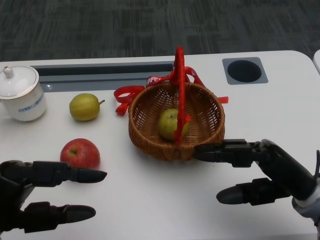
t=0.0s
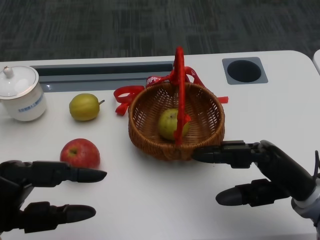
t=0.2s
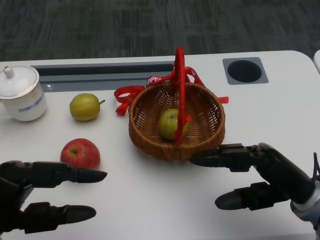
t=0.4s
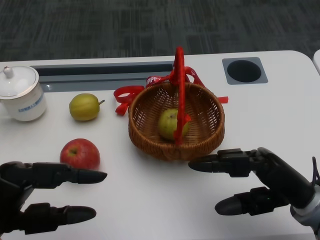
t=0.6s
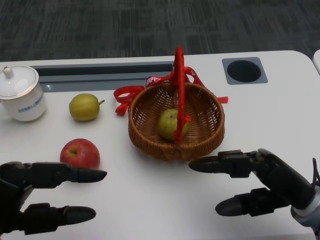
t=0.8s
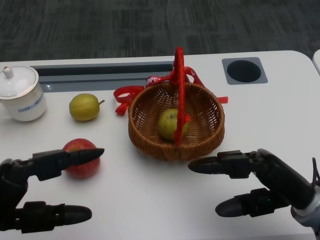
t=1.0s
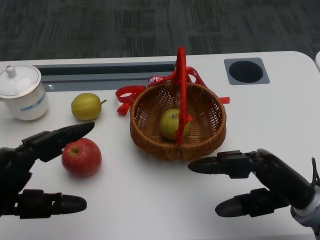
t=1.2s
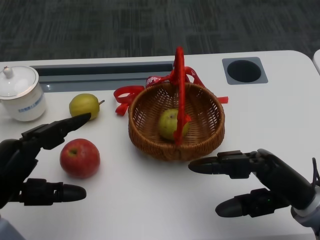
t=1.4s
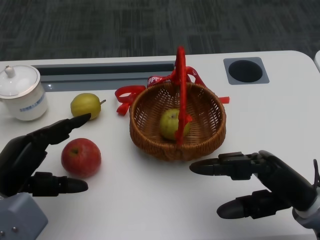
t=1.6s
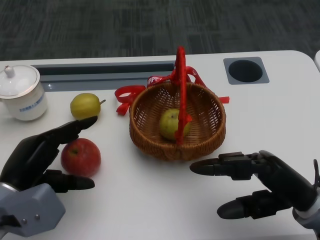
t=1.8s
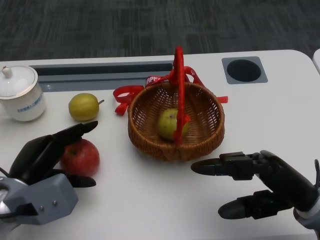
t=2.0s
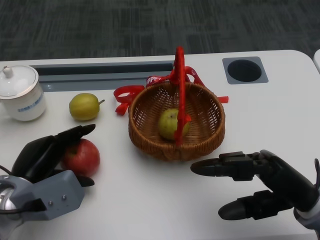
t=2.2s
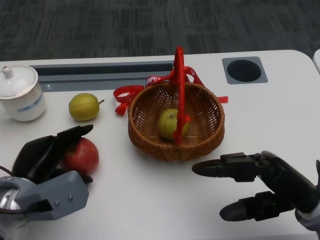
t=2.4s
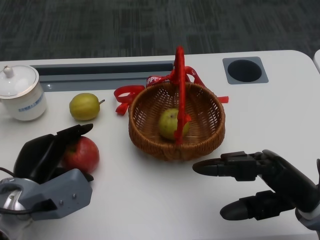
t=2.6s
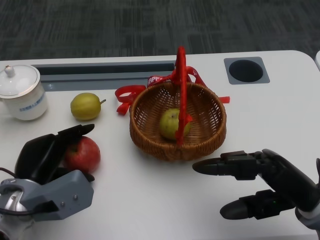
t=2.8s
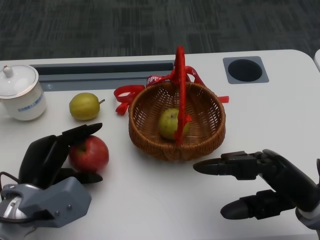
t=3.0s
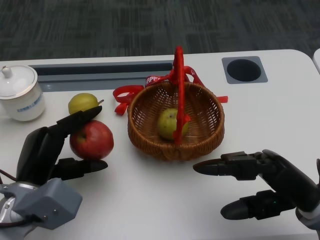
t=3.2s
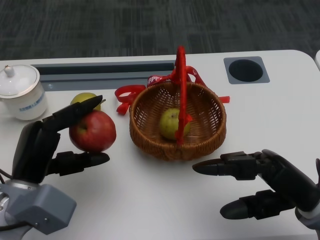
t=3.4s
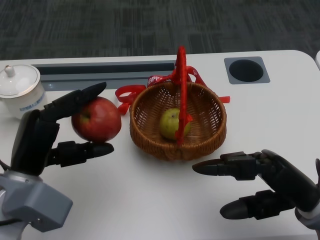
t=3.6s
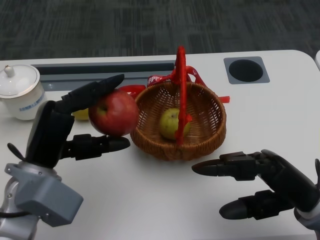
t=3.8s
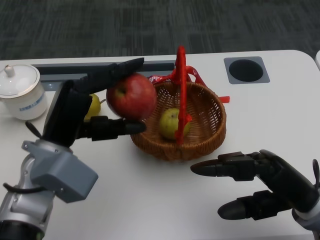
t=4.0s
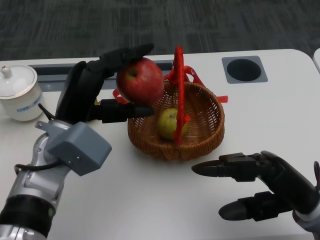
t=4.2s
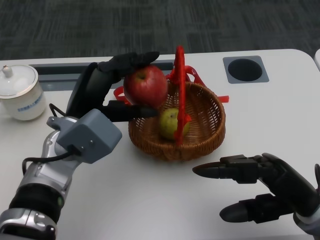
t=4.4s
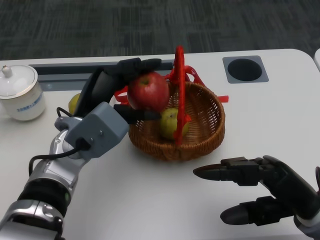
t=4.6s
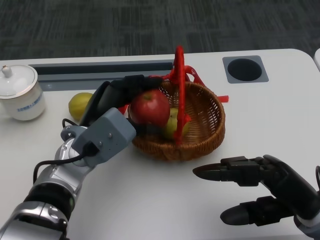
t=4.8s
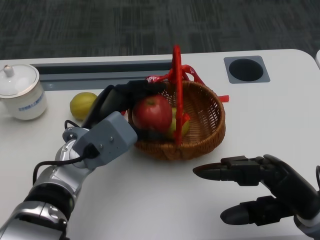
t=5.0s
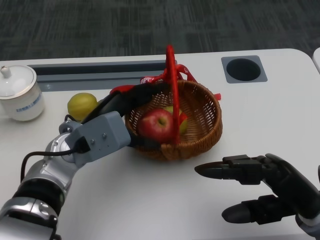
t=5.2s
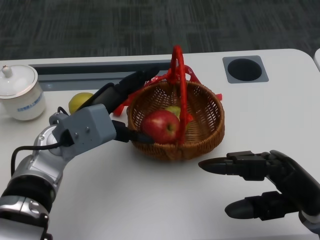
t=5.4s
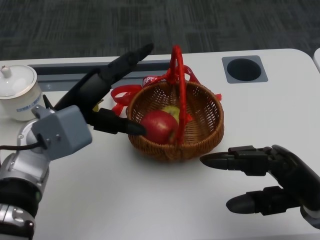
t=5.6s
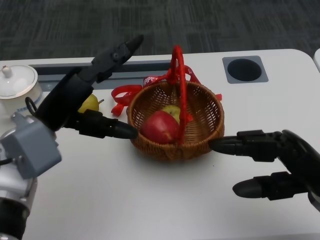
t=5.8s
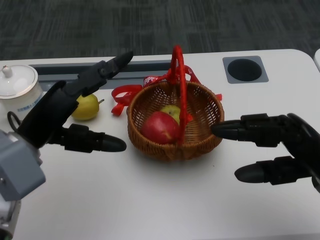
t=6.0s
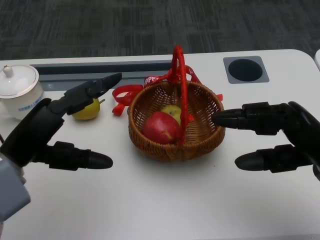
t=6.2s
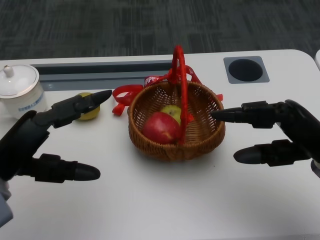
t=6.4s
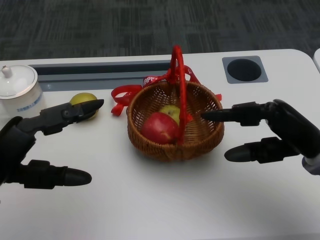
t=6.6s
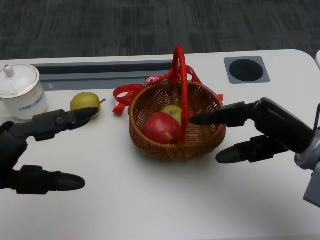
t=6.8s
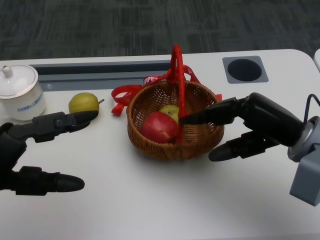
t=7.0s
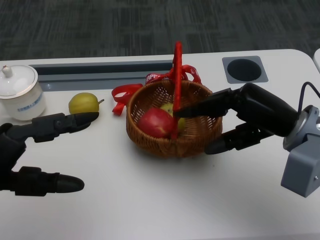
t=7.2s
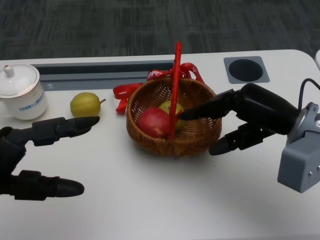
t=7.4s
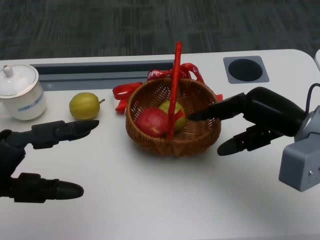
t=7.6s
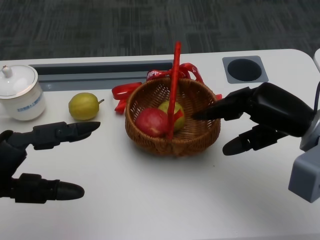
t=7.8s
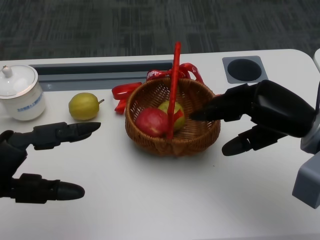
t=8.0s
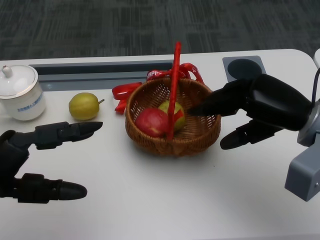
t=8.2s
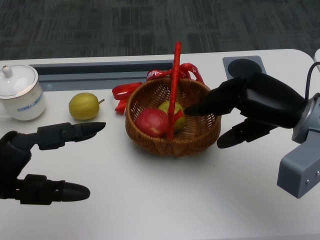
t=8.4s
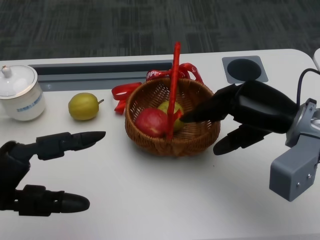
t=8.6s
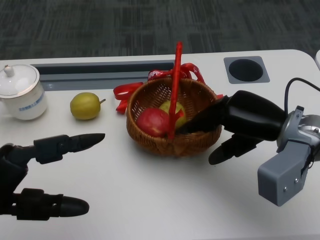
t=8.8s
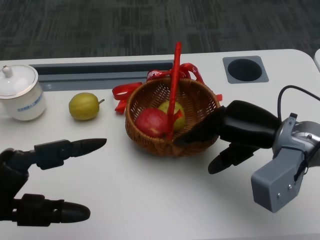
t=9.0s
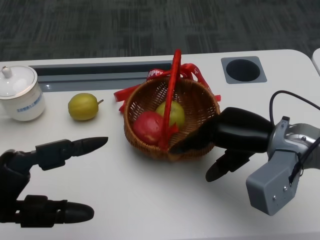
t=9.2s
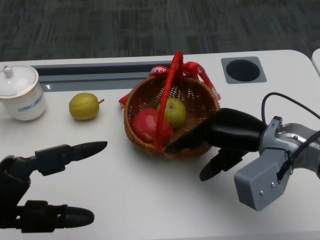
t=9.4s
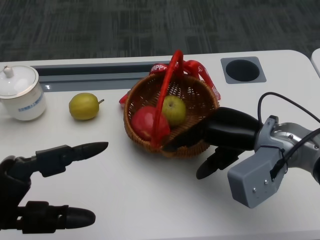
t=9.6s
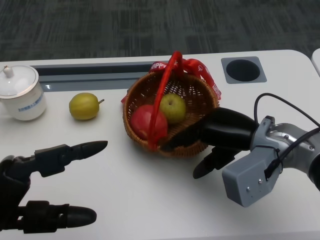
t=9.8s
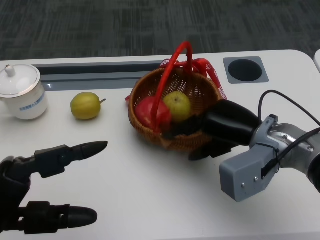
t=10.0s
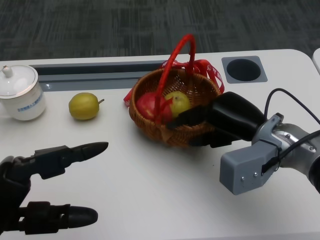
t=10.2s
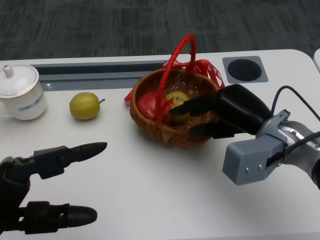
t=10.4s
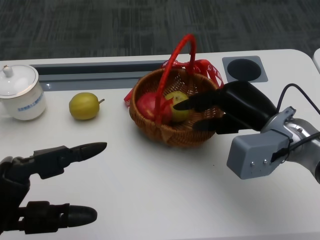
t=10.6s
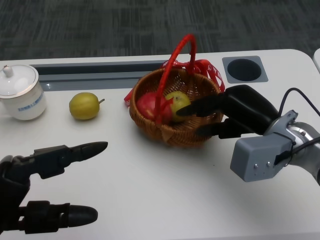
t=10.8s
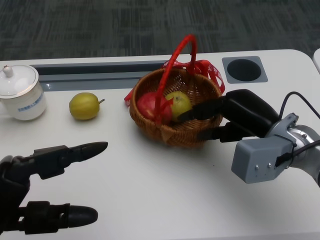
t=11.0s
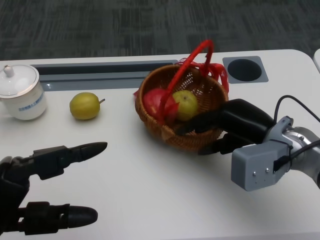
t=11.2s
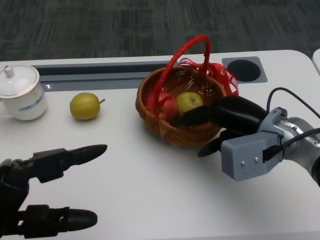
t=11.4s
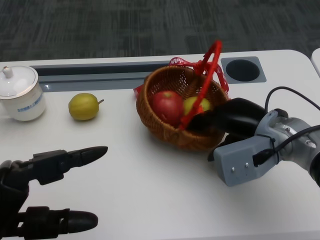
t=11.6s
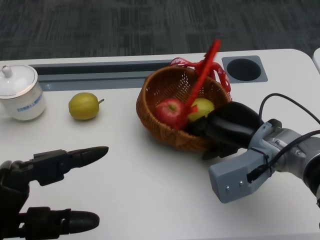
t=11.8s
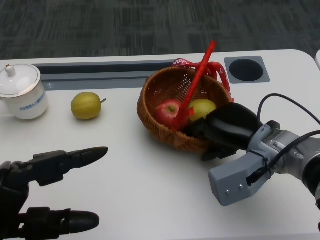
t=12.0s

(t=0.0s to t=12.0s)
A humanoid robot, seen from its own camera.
Step, t=0.8s - t=1.8s: Grasp the apple with the left gripper.
Step, t=2.0s - t=4.4s: Place the apple into the basket with the left gripper.
Step, t=4.6s - t=9.8s: Grasp the basket with the right gripper.
Step, t=10.0s - t=11.8s: Move the basket to the front of the table with the right gripper.
t=1.6s - t=3.0s: The left hand goes about 5 cm downward.
t=3.0s - t=4.4s: The left hand is displaced upward, to the right and forward by about 10 cm.
t=4.4s - t=6.0s: The left hand is displaced to the left by about 5 cm.
t=6.0s - t=7.6s: The right hand heads forward, covering roughly 5 cm, while the left hand goes roughly 10 cm backward and to the left.

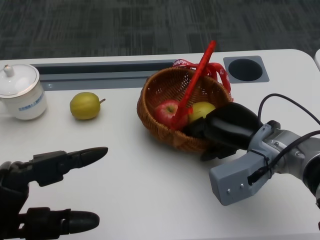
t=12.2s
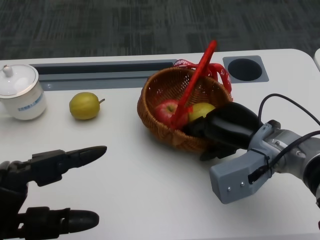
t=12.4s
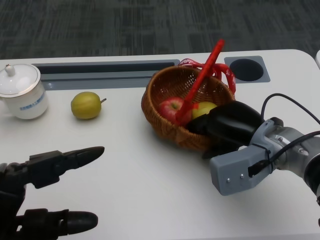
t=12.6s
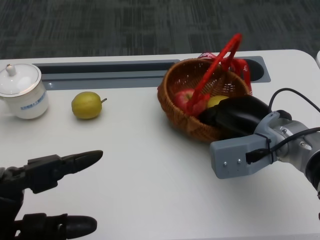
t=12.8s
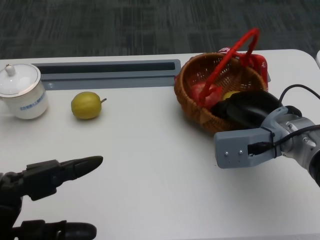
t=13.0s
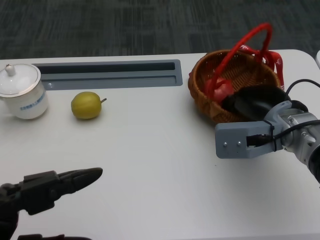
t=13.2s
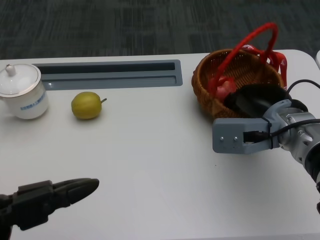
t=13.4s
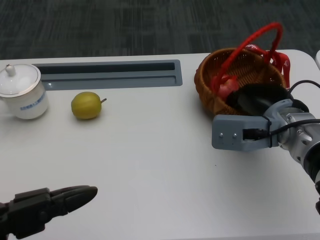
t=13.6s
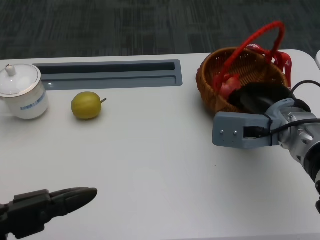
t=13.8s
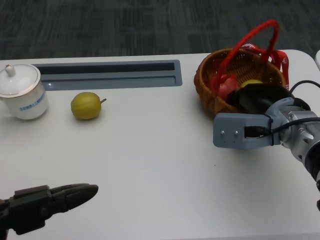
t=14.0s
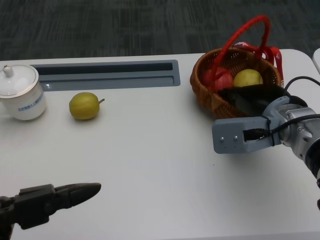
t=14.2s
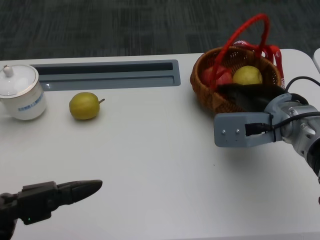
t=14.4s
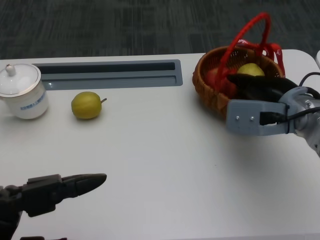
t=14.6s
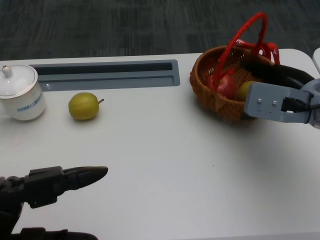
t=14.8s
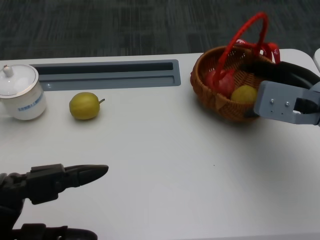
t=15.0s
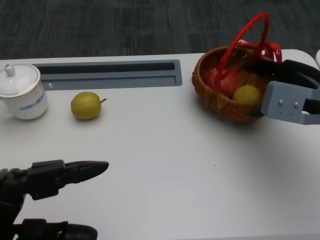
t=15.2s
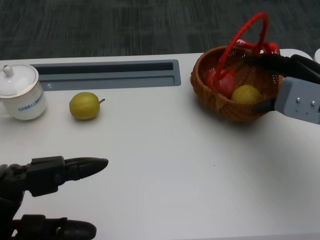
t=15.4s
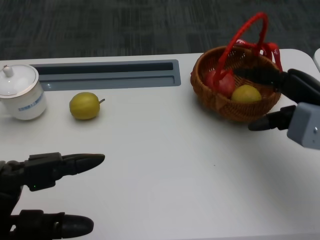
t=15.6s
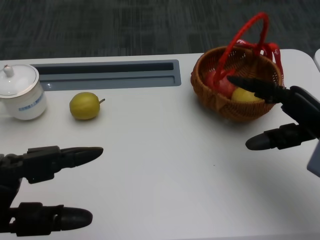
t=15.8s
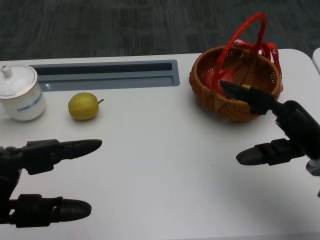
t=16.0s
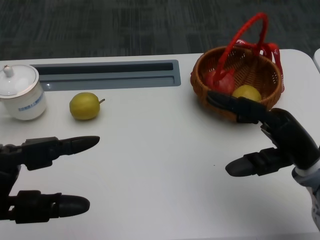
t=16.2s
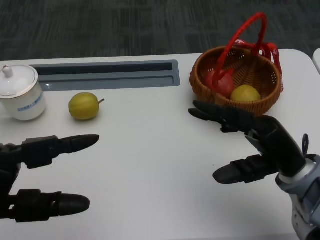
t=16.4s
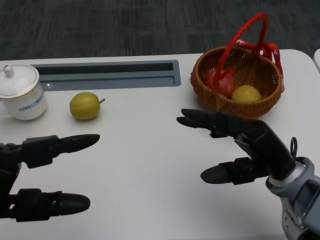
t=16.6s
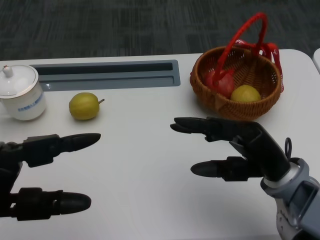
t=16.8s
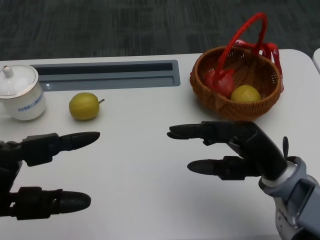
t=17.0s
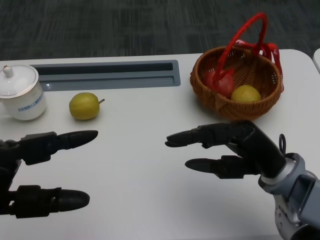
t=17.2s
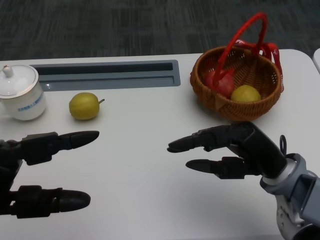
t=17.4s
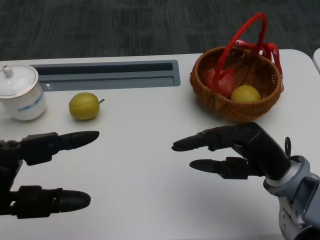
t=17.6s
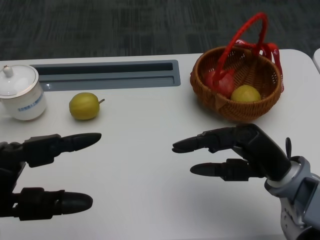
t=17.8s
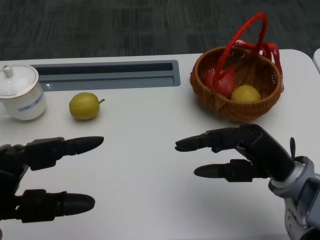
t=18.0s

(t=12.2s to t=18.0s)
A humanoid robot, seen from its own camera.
t=12.2s - t=13.6s: The left hand is displaced backward by roughly 5 cm.
t=13.6s - t=15.0s: The right hand heads to the right, covering about 5 cm.
t=15.0s - t=16.6s: The right hand goes some 10 cm backward and downward.
t=16.6s - t=18.0s: The hands make only small movements.

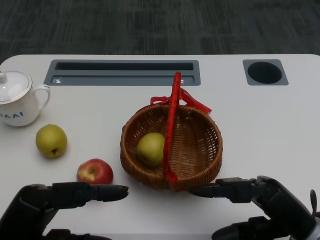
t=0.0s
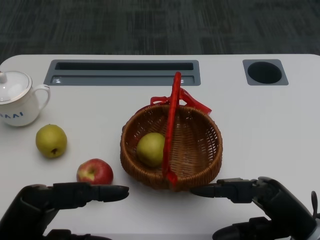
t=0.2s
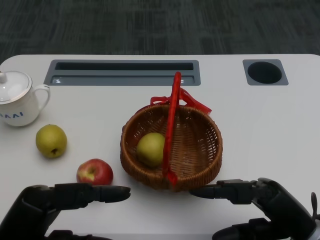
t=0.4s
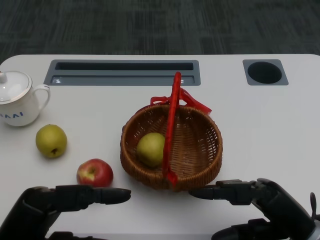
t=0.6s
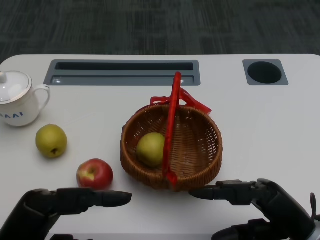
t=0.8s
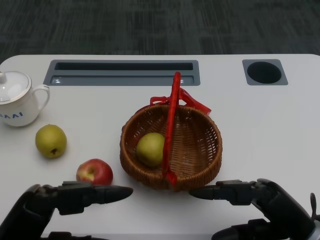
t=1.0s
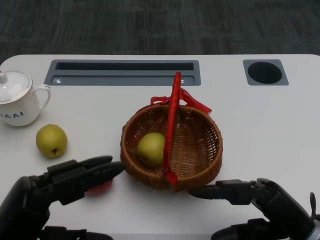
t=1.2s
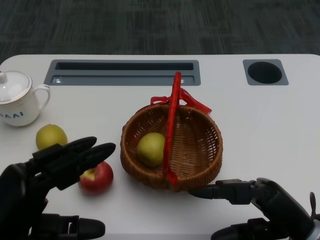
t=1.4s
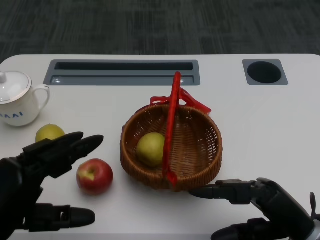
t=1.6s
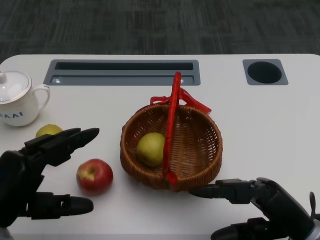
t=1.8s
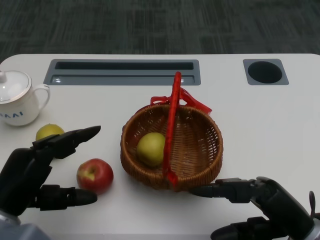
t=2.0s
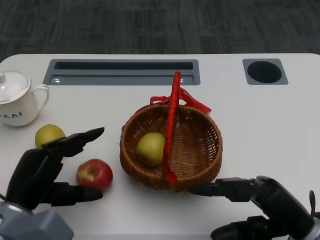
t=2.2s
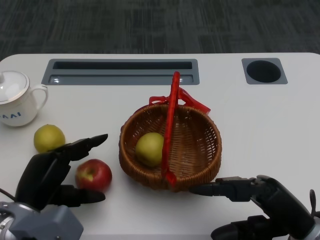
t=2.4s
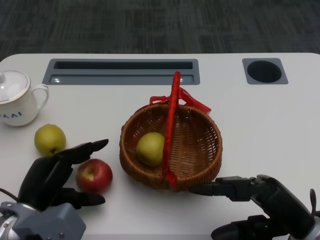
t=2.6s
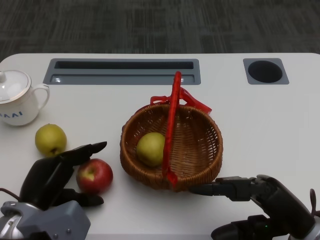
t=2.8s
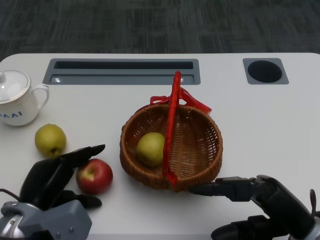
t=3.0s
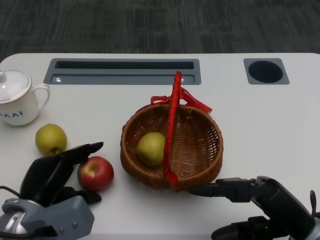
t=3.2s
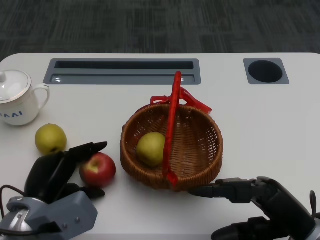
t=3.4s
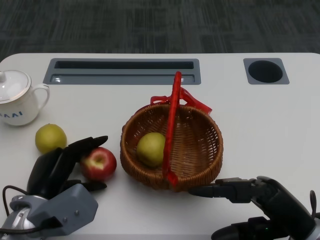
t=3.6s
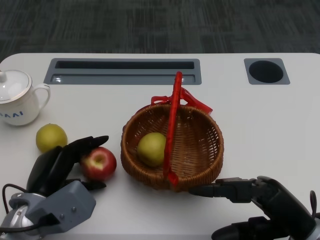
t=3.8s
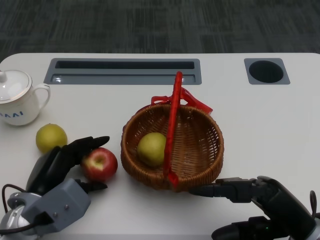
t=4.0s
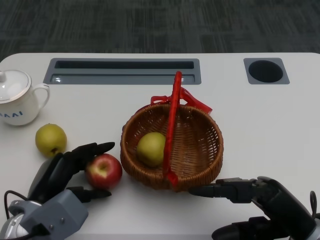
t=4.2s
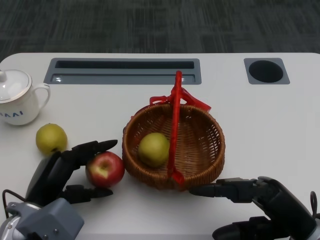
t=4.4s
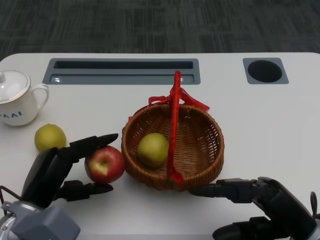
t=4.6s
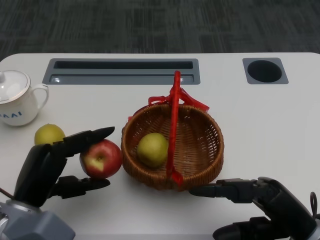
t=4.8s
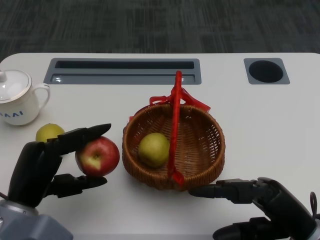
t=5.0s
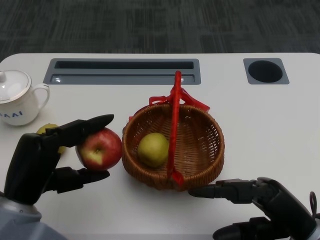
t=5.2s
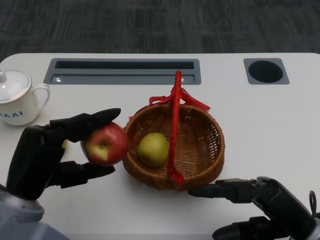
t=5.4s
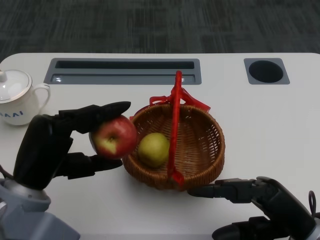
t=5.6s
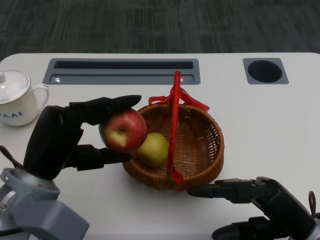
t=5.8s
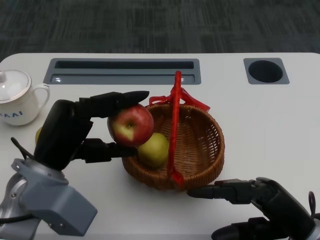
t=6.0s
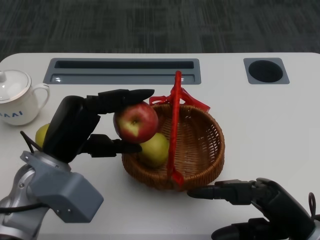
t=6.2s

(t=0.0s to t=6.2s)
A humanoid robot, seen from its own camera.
Step, t=0.8s - t=2.8s: Grasp the apple with the left gripper.
Step, t=3.0s - t=5.8s: Place the apple into the basket with the left gripper.
t=1.6s - t=3.2s: The left hand goes approximately 15 cm downward and forward.
t=4.6s - t=6.2s: The left hand moves upward, about 10 cm.
